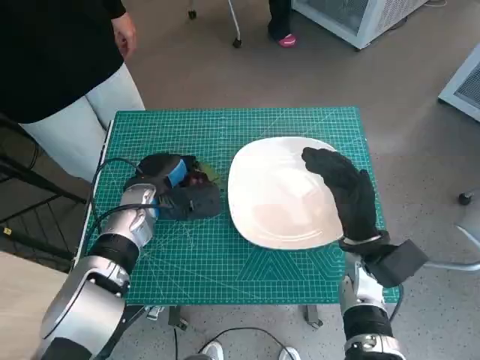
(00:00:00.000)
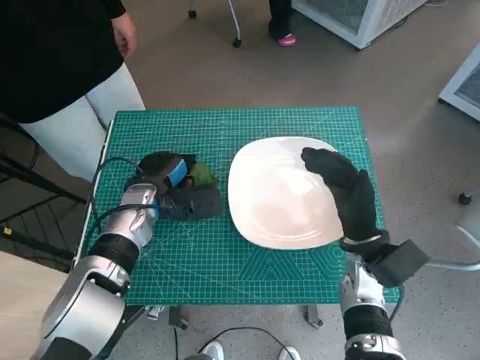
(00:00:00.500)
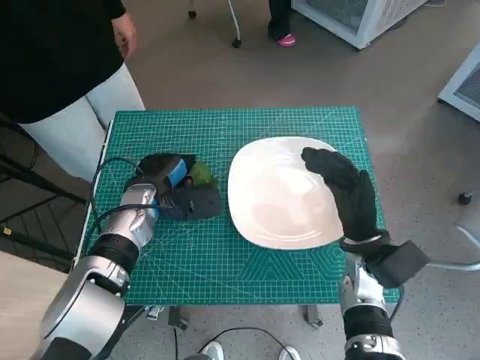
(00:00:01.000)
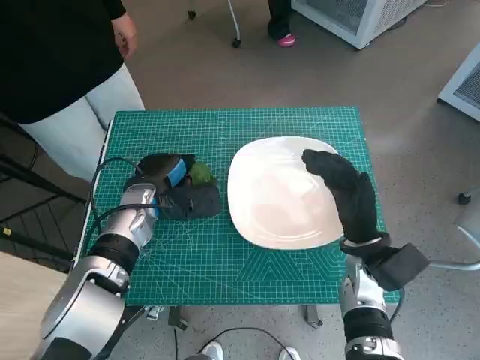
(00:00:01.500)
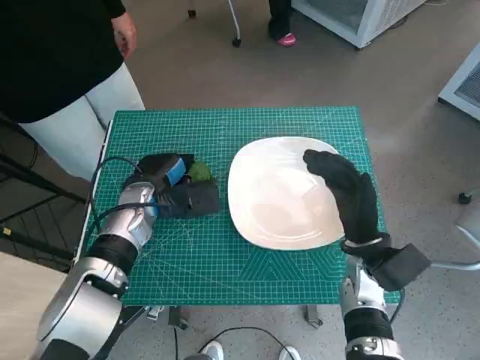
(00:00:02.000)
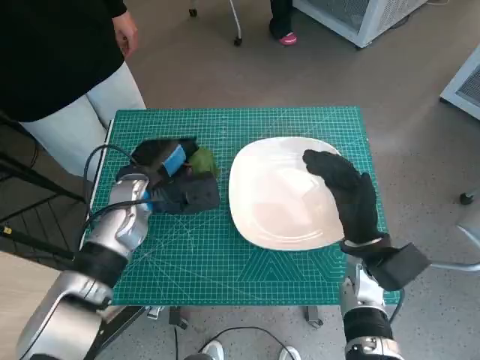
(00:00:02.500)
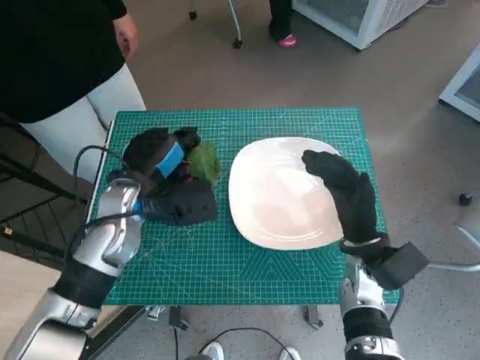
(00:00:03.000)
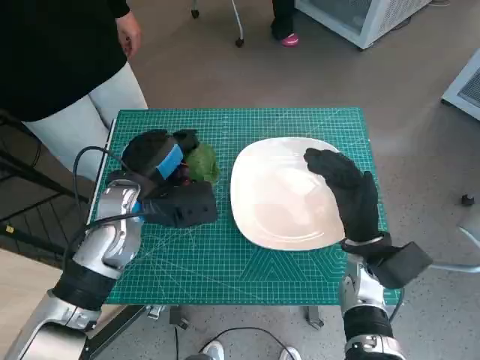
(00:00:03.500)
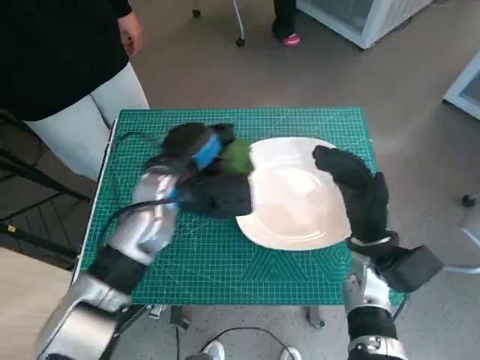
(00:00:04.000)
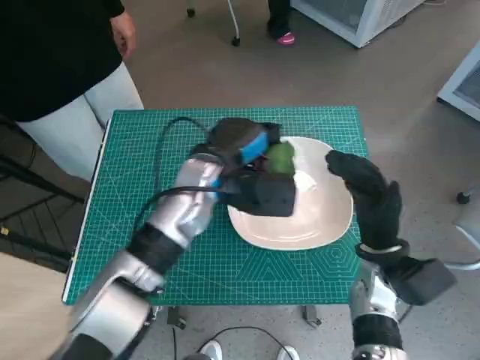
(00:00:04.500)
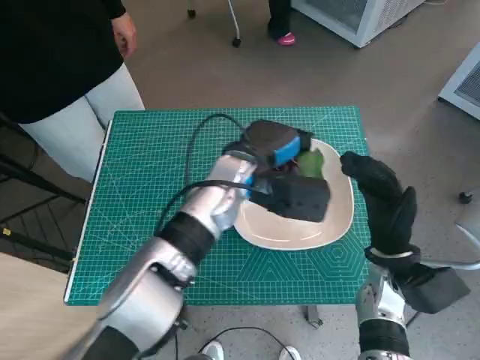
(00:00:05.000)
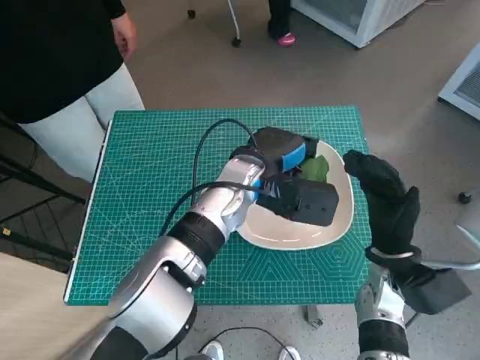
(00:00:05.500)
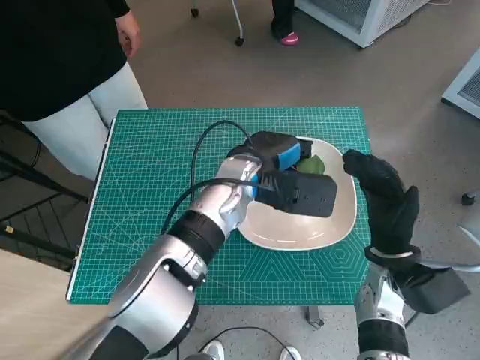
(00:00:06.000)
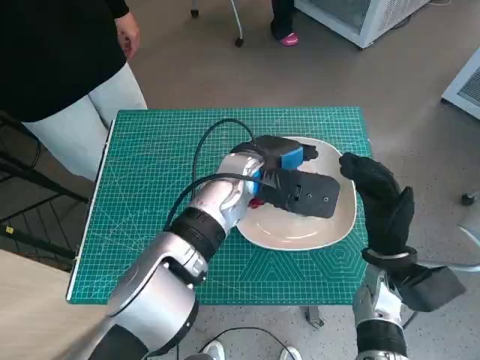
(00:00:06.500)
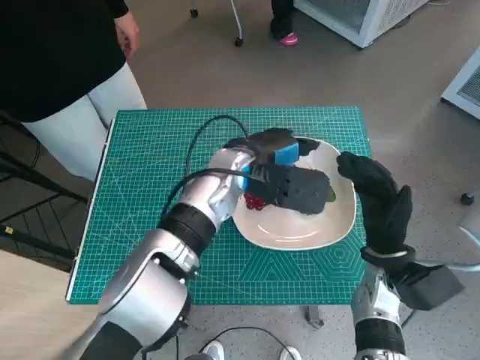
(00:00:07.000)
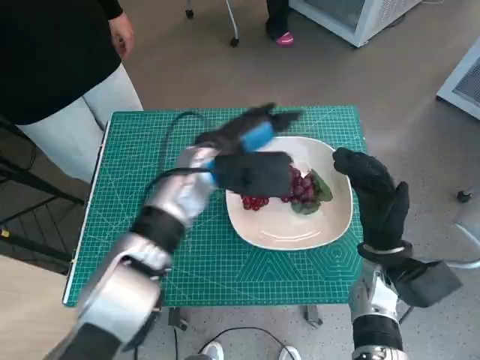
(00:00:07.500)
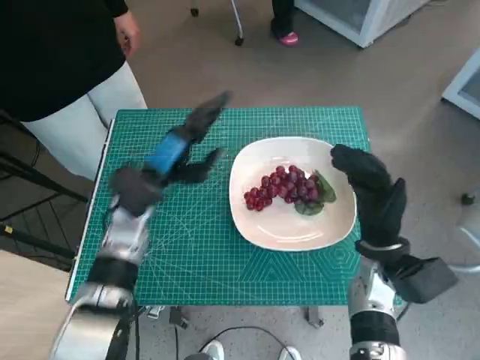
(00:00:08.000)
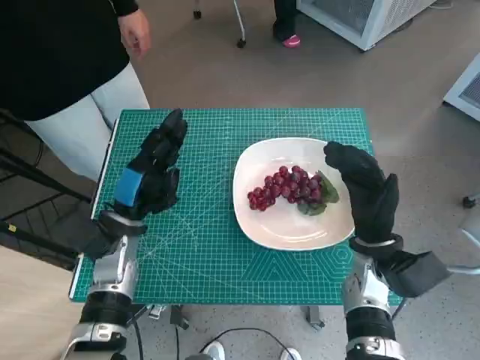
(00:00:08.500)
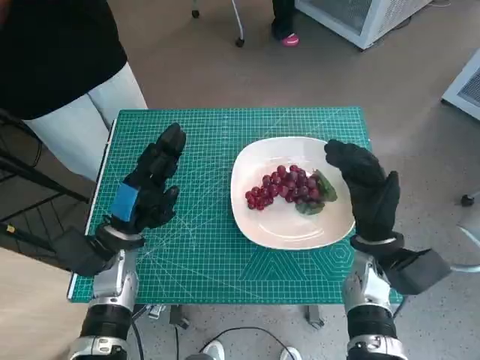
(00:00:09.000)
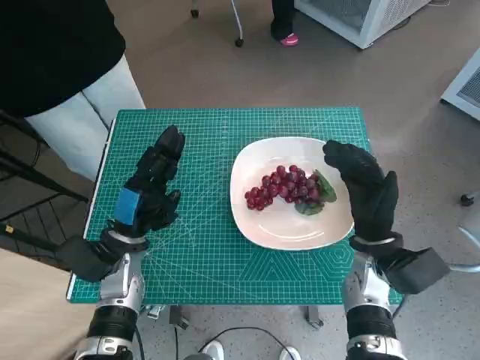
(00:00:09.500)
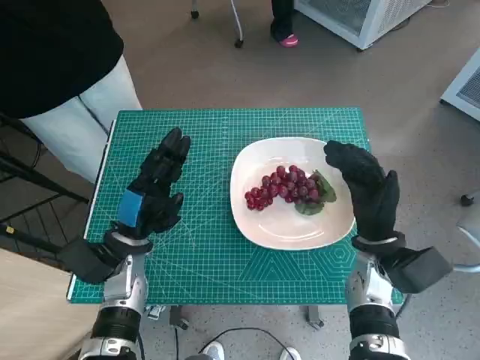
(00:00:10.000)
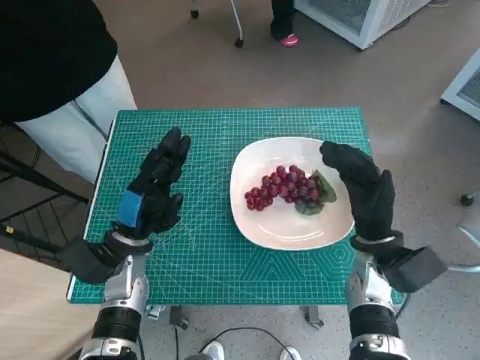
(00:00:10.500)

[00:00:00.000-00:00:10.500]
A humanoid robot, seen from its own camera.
Task of the whole recording: Pick up the grapes and put them on the plate.
Step, 00:00:00.500 to 00:00:06.500: Place the grapes in the plate with left hand.
00:00:00.000 to 00:00:02.000: Neither hand changes place.
00:00:02.000 to 00:00:04.000: The left hand shifts about 10 cm upward and to the right.
00:00:04.000 to 00:00:06.500: The left hand moves to the right, about 10 cm.
00:00:06.500 to 00:00:08.500: The left hand goes approximately 20 cm to the left and downward.
00:00:08.500 to 00:00:10.500: There are only small adjustments of the hands.

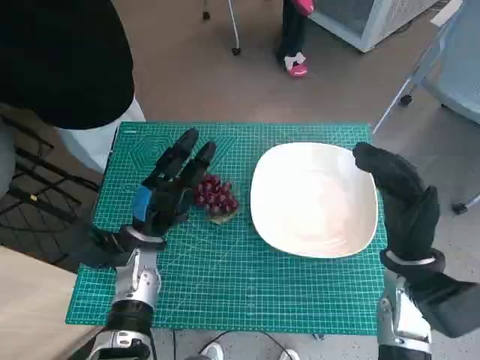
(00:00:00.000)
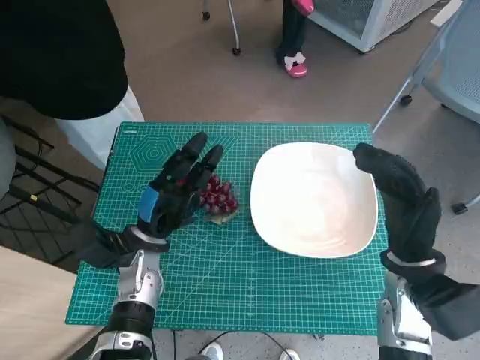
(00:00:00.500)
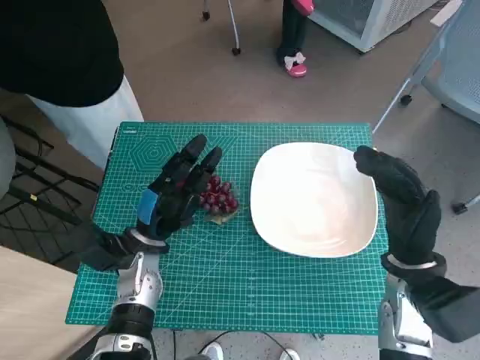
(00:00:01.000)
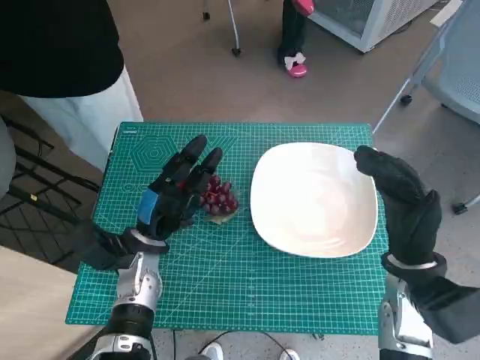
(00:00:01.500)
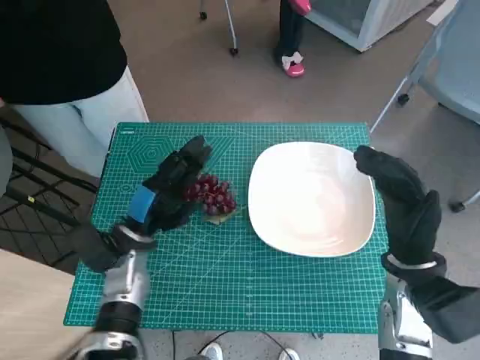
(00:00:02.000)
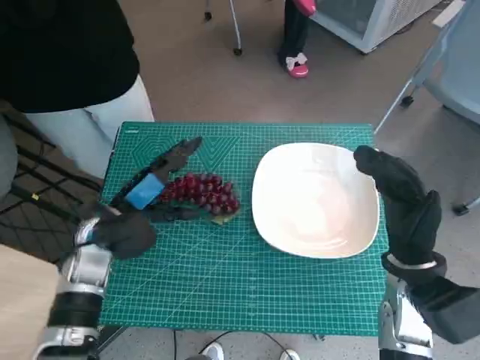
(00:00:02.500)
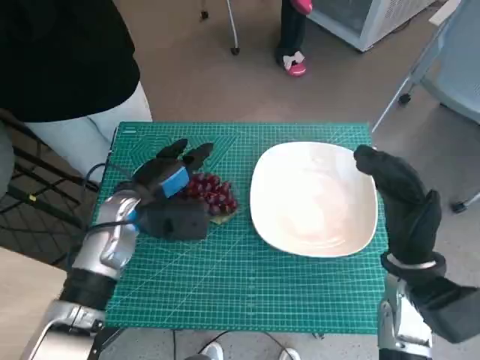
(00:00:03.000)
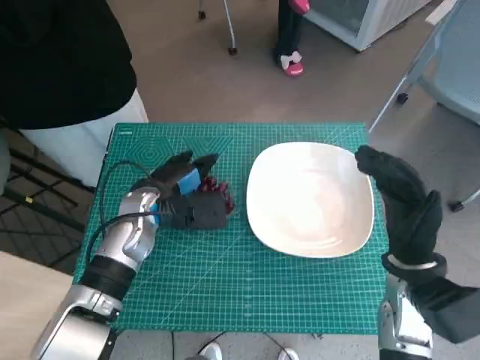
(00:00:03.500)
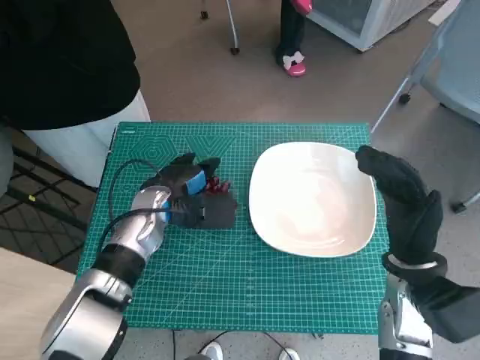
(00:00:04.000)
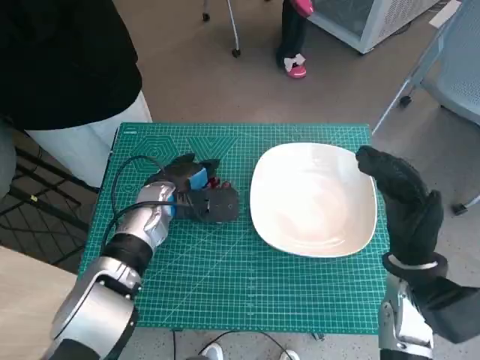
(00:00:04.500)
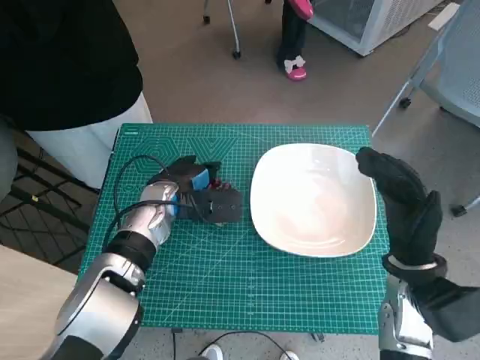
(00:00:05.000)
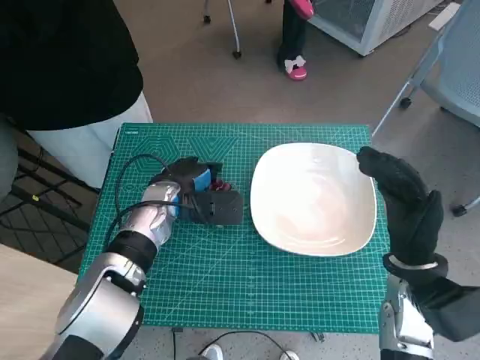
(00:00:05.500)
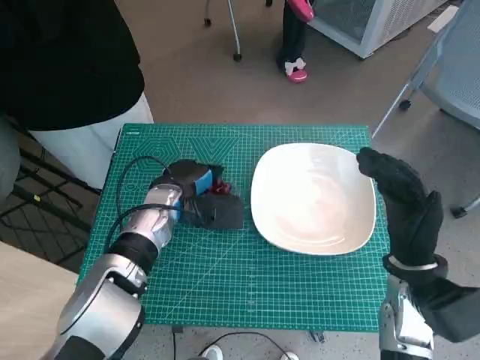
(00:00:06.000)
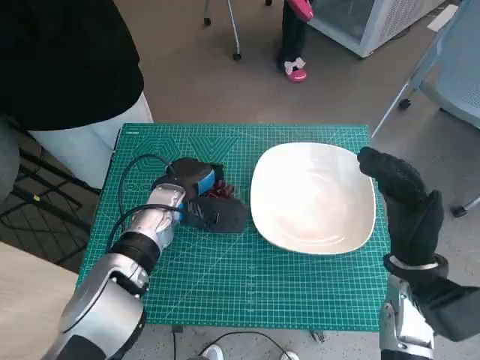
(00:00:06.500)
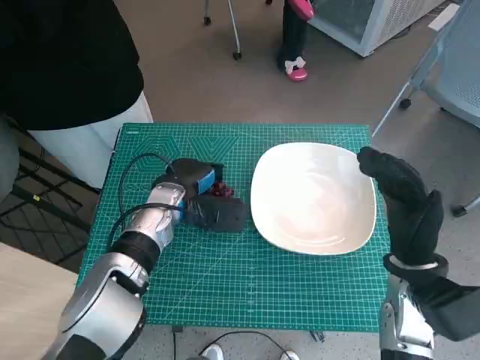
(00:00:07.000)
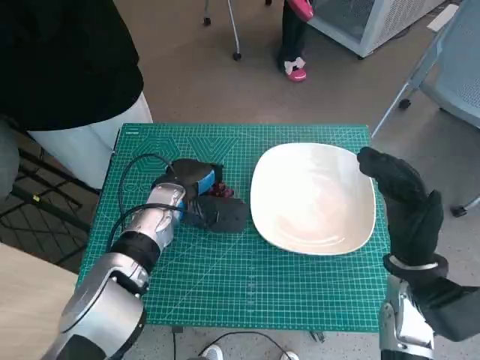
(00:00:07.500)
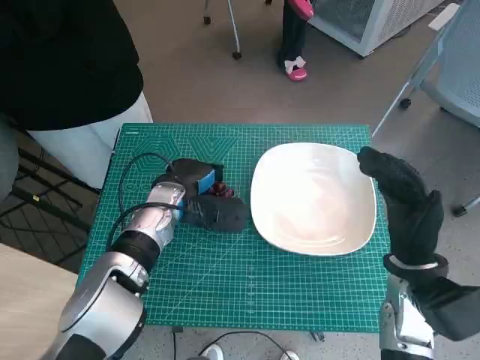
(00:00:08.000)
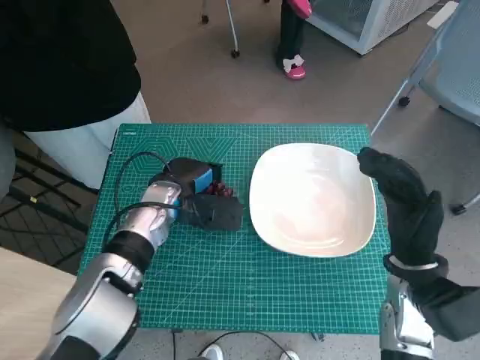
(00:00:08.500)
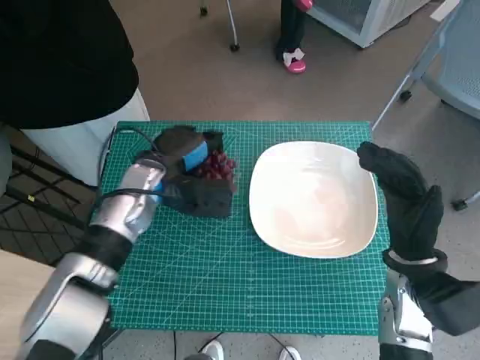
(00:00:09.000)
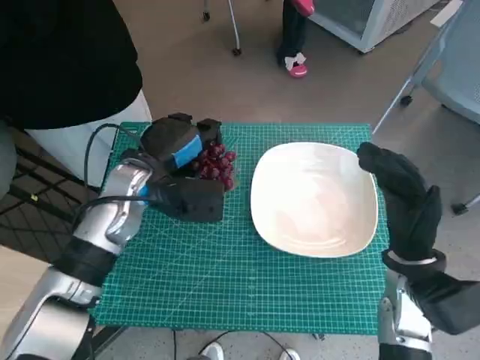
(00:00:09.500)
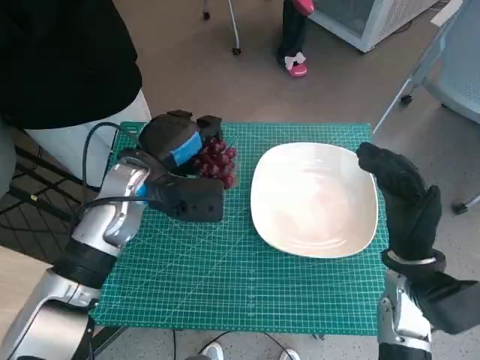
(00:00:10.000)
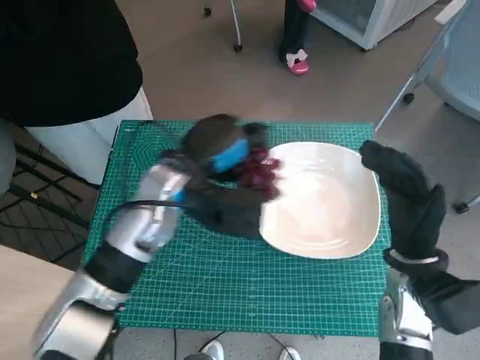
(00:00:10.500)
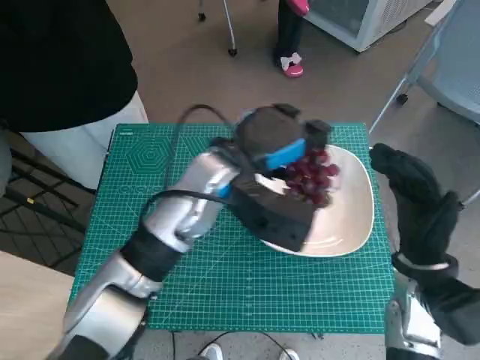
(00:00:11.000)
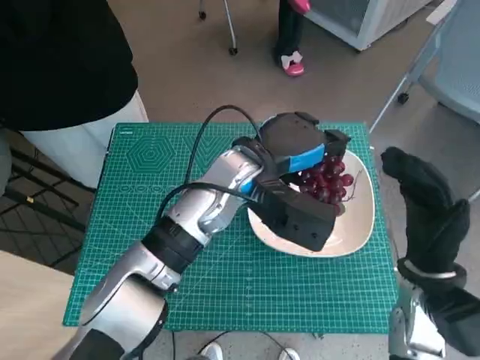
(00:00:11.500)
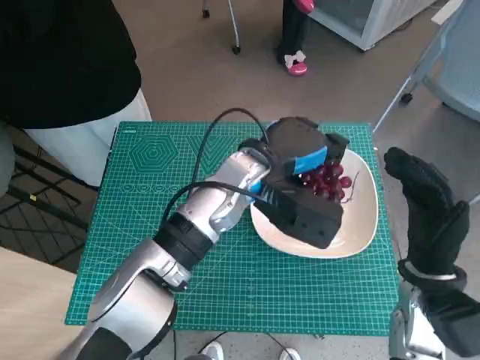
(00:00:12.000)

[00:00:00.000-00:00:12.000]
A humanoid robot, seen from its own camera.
Task of the whole recording: Pick up the grapes and put them on the plate.
Step, 00:00:00.000 to 00:00:06.500: Grasp the grapes with left hand.
00:00:02.000 to 00:00:04.000: The left hand moves forward, approximately 5 cm.
00:00:04.000 to 00:00:08.000: There are only small adjustments of the hands.
00:00:08.000 to 00:00:10.000: The left hand moves upward, some 10 cm.
00:00:10.000 to 00:00:12.000: The left hand goes some 15 cm to the right.

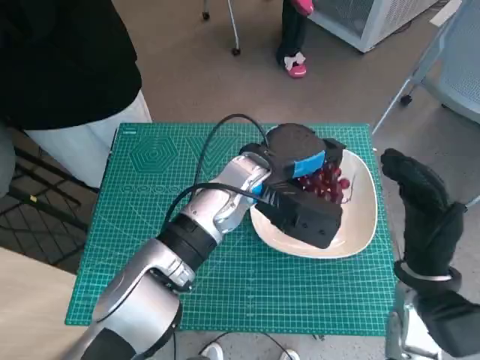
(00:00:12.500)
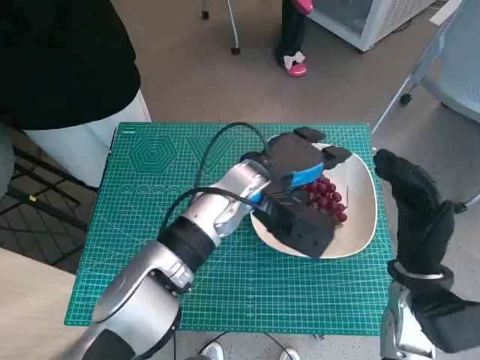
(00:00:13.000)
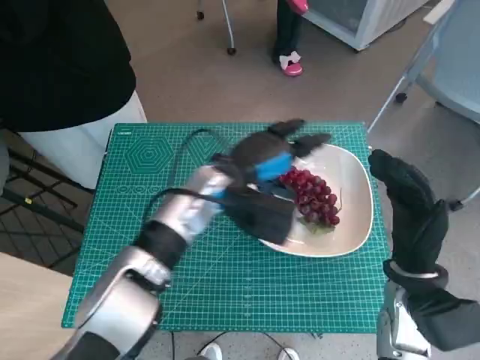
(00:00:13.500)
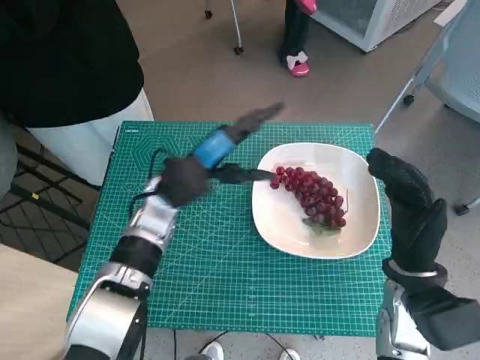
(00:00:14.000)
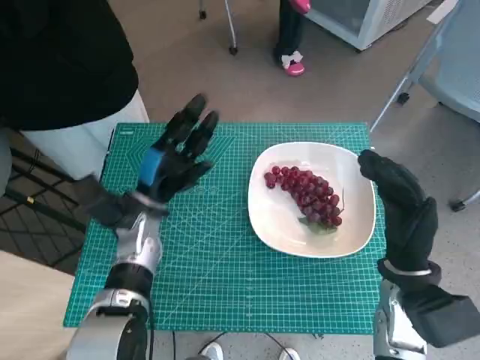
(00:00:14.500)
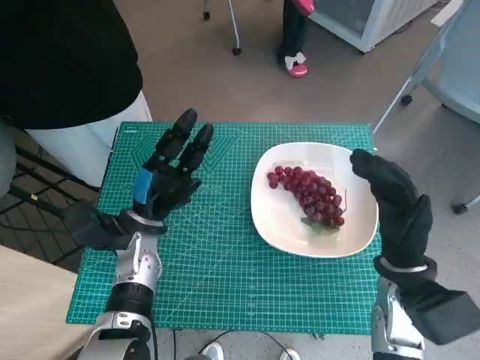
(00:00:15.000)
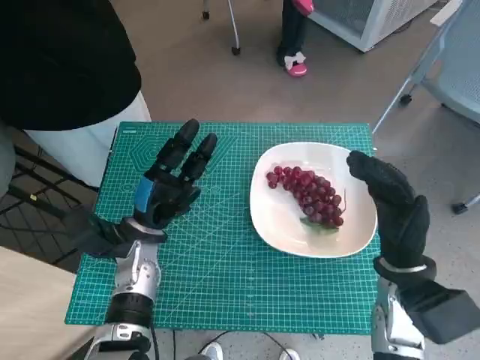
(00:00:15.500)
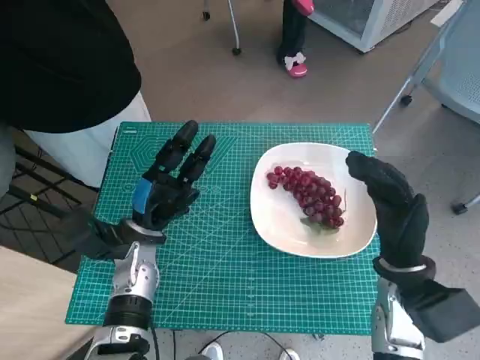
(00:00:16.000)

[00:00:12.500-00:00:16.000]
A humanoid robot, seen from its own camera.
Task of the whole recording: Pick up the grapes and put them on the plate.
00:00:12.500 to 00:00:14.500: The left hand travels to the left and downward by some 20 cm.
00:00:14.500 to 00:00:16.000: The hands move only a little.
